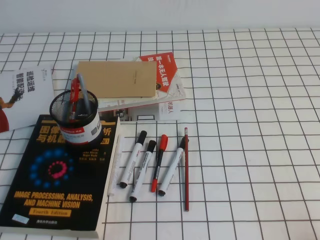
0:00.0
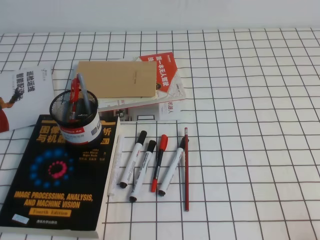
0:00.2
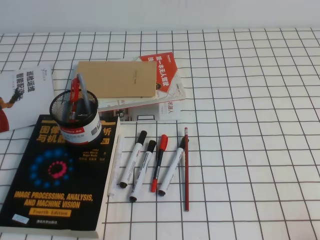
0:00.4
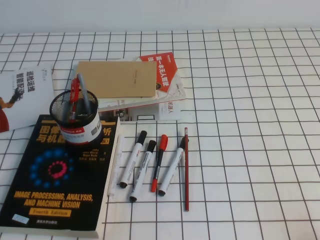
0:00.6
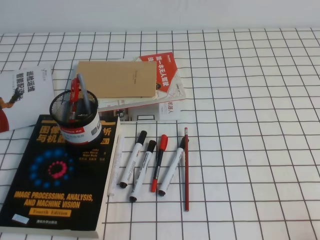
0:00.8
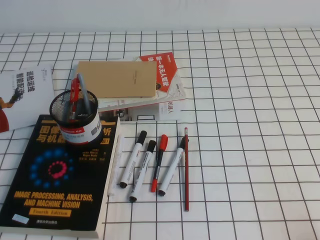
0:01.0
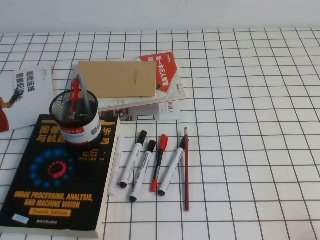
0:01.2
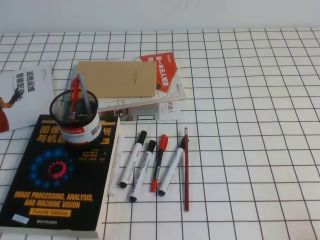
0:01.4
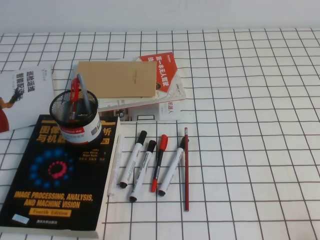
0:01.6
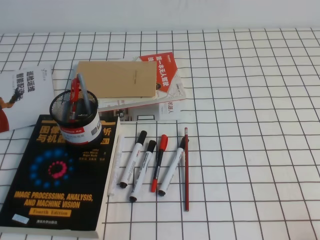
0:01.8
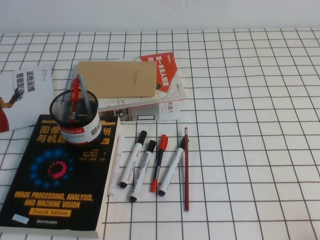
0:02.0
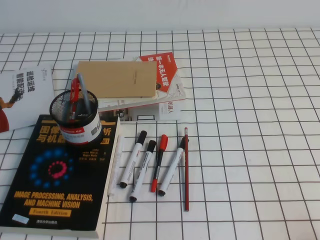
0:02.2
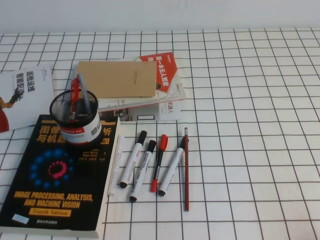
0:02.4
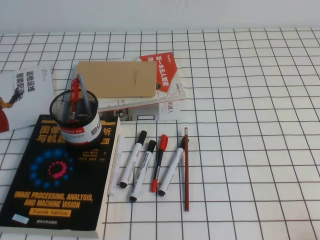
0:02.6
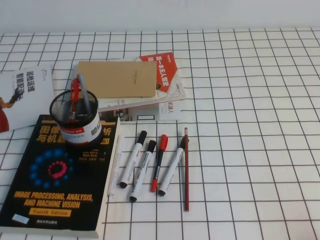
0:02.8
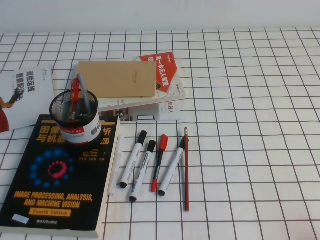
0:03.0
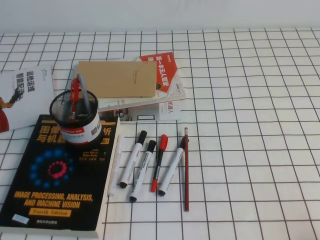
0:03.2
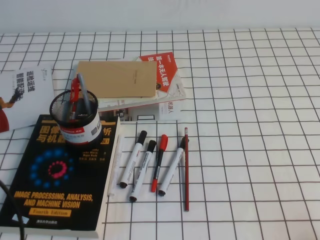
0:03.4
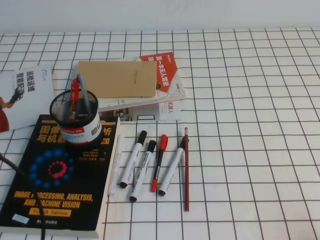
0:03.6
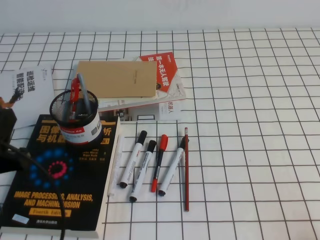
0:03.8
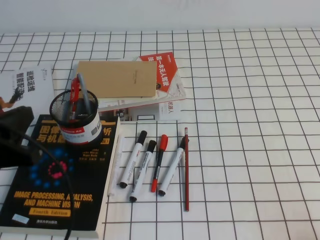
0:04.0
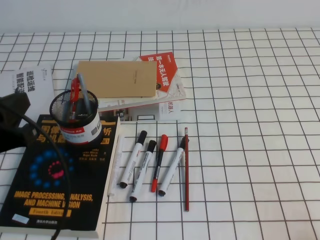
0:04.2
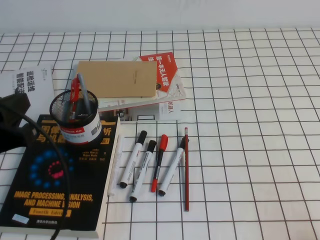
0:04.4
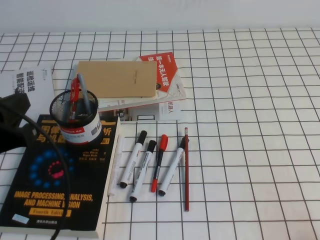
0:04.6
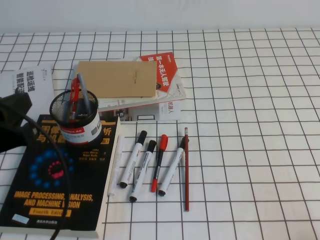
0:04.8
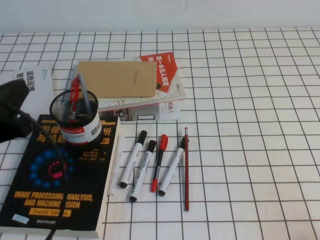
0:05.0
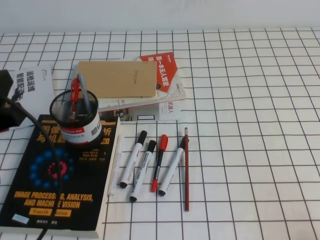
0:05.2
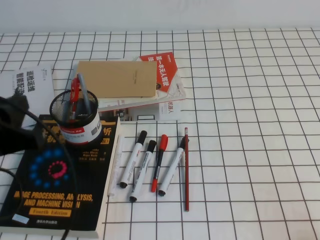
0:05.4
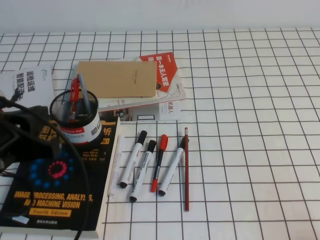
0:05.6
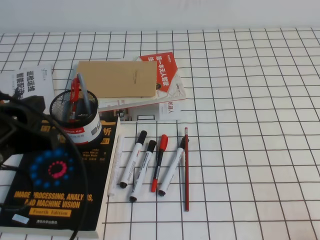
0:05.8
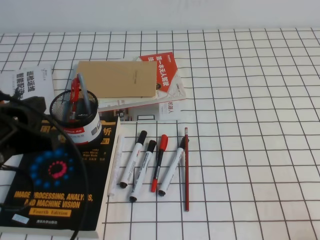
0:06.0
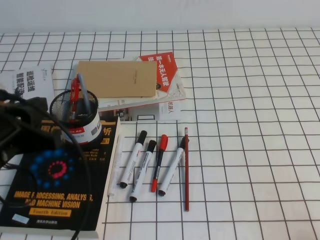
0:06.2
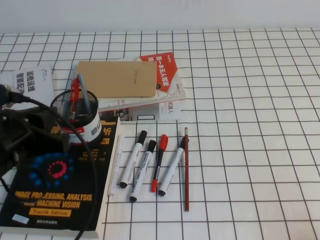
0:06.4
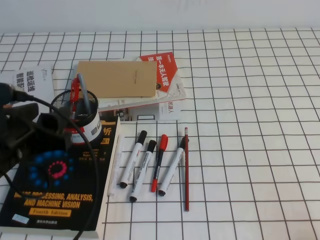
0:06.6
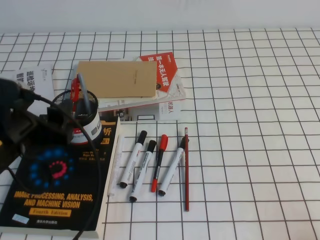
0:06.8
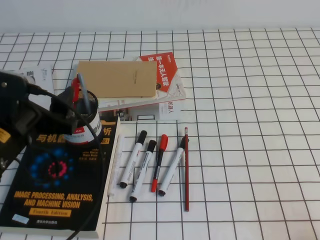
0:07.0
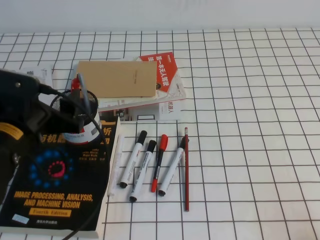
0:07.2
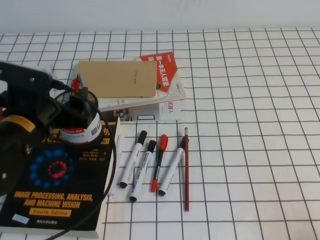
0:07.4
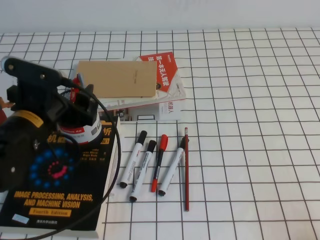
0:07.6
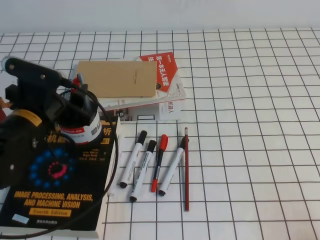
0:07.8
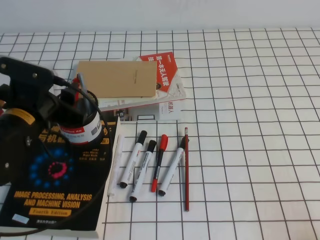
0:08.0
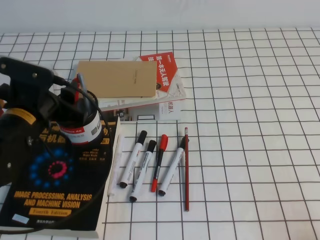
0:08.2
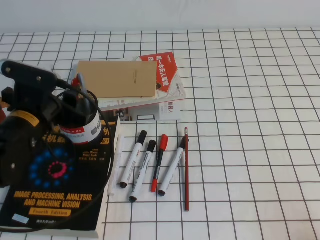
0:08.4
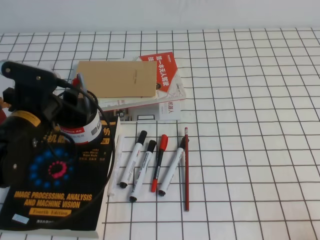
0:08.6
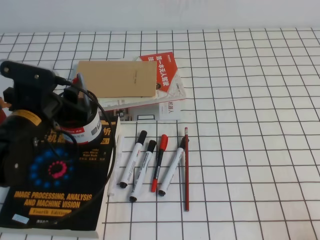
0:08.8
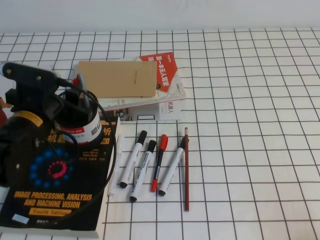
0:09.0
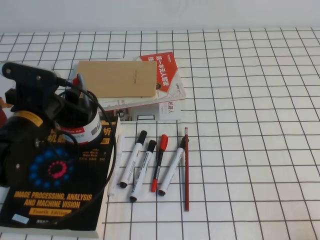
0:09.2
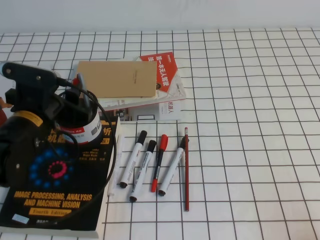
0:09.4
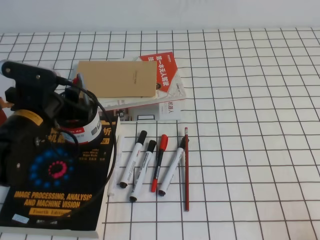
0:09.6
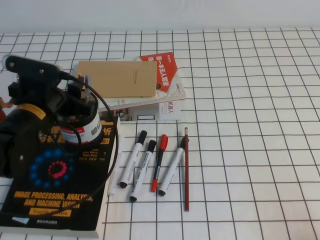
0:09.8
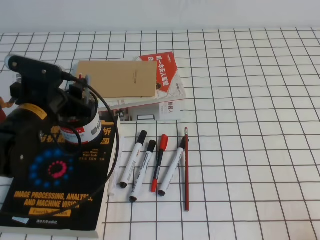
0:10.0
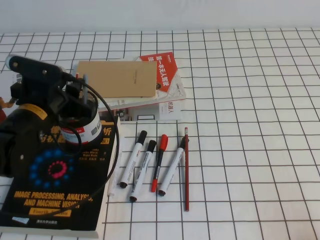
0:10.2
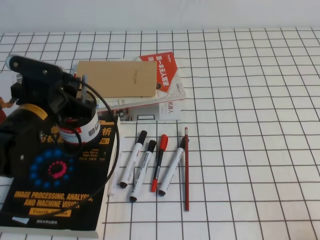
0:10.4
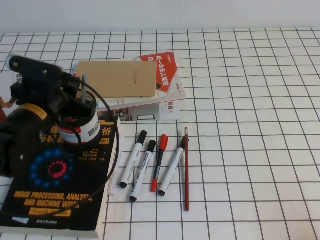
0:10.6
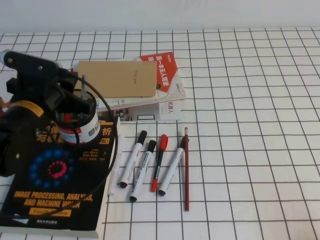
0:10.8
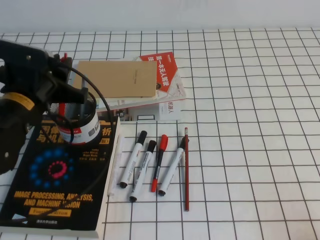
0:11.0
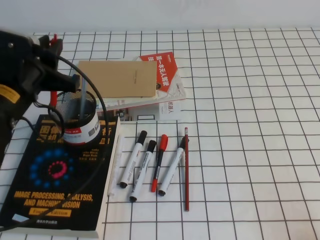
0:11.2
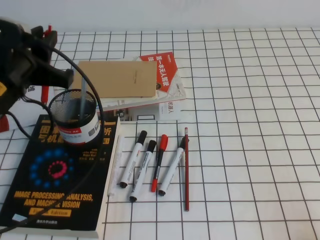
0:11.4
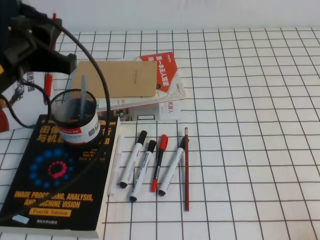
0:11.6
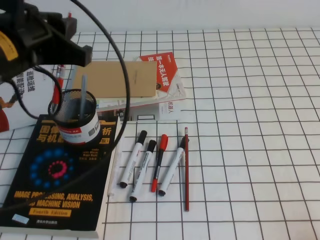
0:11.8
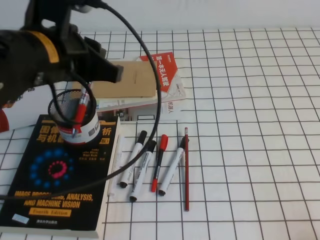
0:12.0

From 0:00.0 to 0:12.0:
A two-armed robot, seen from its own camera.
From 0:03.0 to 0:04.4: The left gripper is displaced forward by some 10 cm.
From 0:04.4 to 0:06.0: The grippers stay close to where they were, moving slightly.
From 0:06.0 to 0:07.6: The left gripper shifts approximately 10 cm forward and downward, and opens.
From 0:07.6 to 0:09.0: The grippers make only small movements.
From 0:09.0 to 0:10.4: The left gripper closes its fingers.
From 0:10.4 to 0:12.0: The left gripper moves upward, approximately 15 cm.

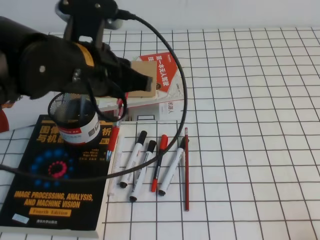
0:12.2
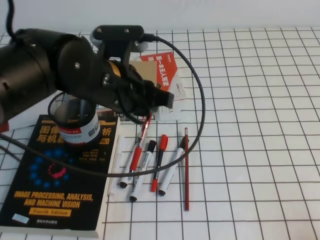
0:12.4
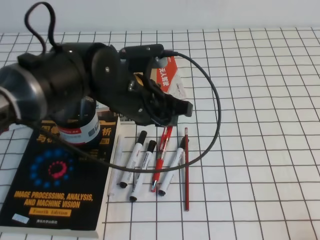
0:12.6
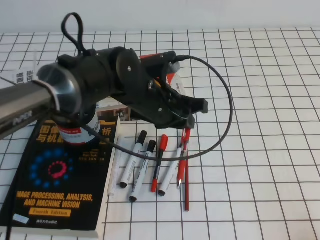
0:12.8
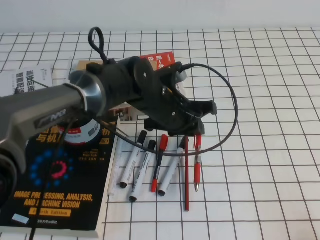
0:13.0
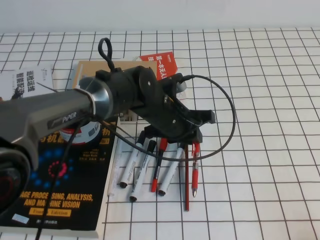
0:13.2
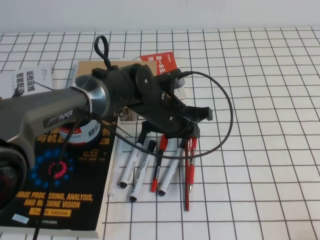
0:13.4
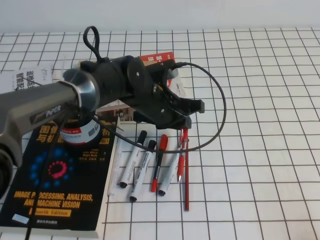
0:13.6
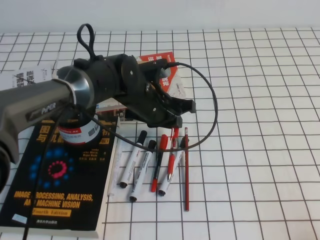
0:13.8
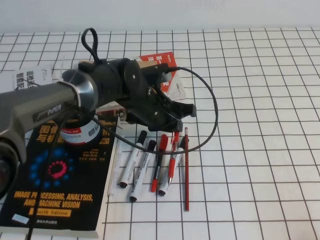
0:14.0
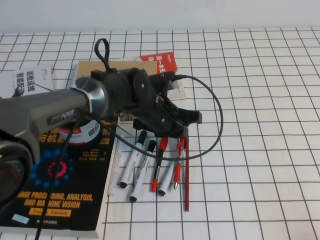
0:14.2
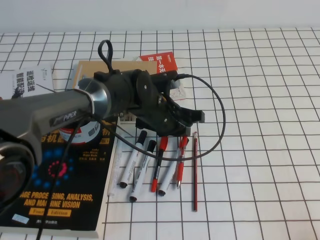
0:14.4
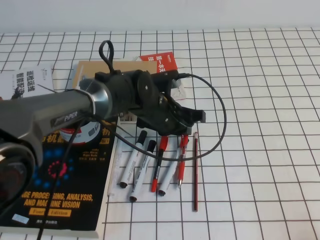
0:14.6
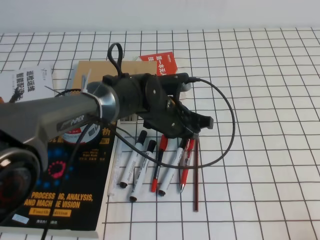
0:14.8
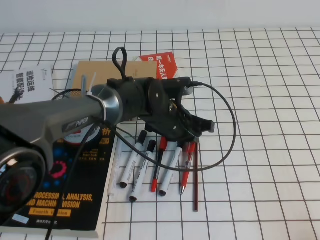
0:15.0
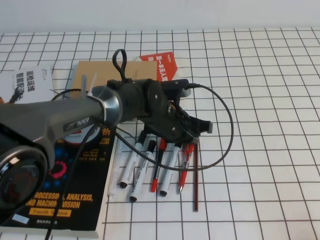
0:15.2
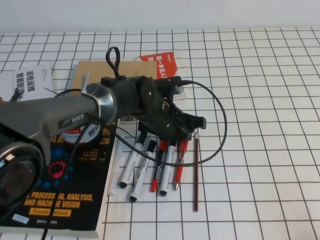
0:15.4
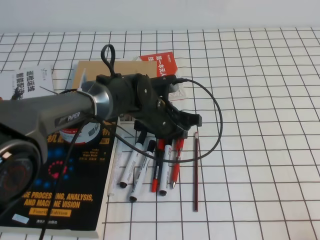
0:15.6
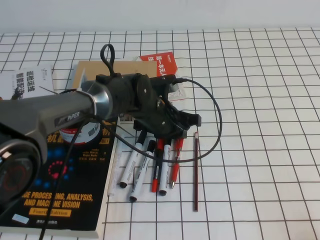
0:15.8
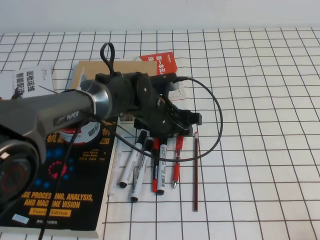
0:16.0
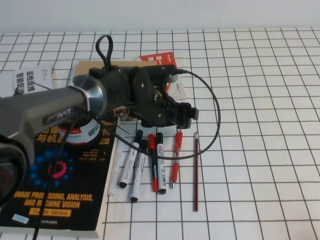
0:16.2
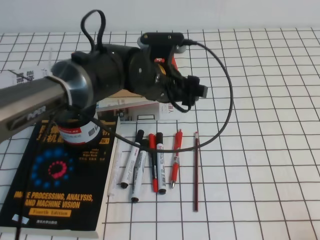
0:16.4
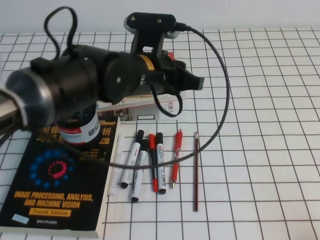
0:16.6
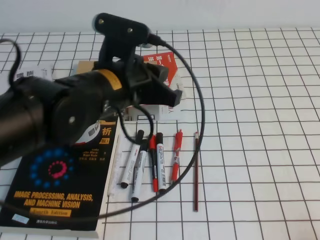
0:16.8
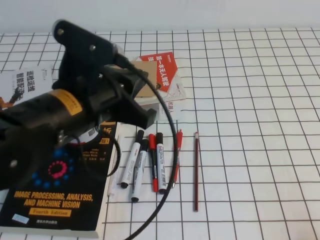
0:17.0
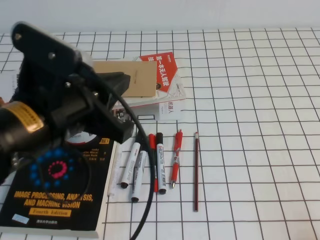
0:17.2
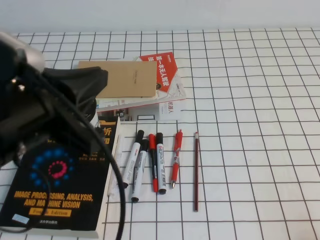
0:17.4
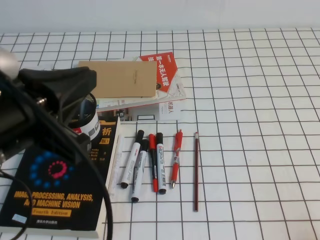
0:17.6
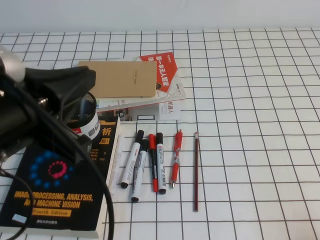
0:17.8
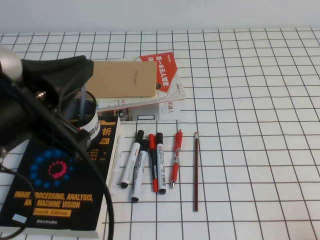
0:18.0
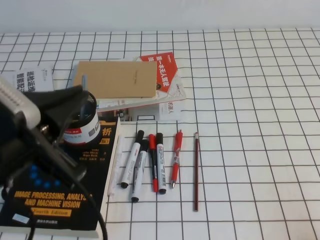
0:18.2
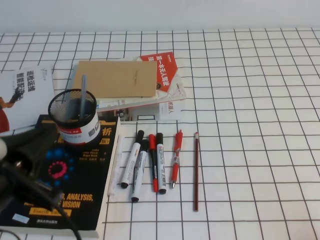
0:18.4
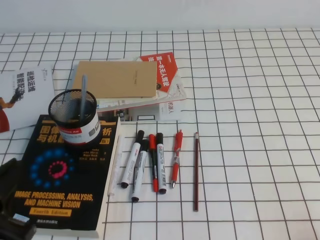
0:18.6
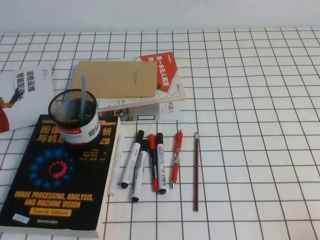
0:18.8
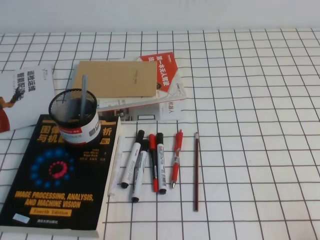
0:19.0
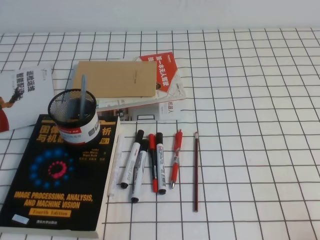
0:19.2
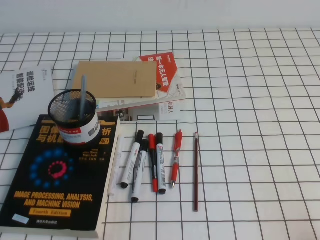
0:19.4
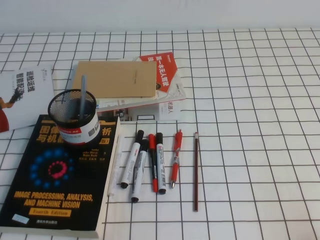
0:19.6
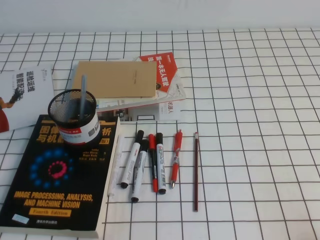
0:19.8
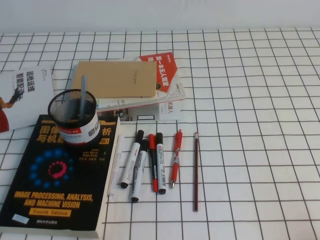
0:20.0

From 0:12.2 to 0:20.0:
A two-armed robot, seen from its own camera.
Step, from 0:12.2 to 0:20.0: Pick up the pen from the pen holder.
From 0:12.2 to 0:13.8: The left gripper shifts roughly 20 cm downward, to the right and forward.
From 0:13.8 to 0:15.4: The grippers move only a little.
From 0:15.4 to 0:16.8: The left gripper is displaced upward, backward and to the left by roughly 20 cm, and opens and closes again.
From 0:16.8 to 0:18.4: The left gripper heads backward and to the left, covering some 20 cm.
From 0:18.4 to 0:20.0: The left gripper travels downward, backward and to the left by about 15 cm.

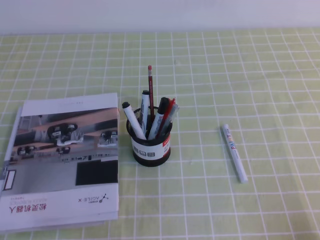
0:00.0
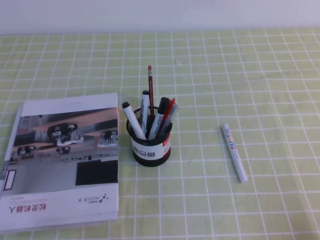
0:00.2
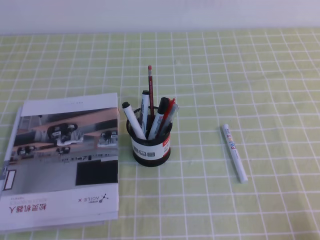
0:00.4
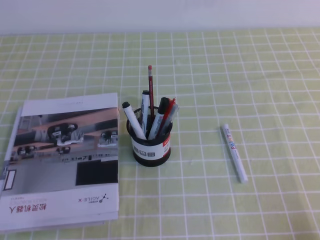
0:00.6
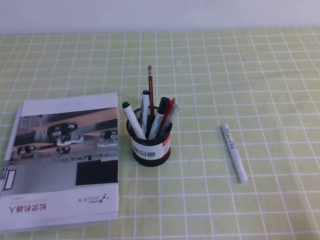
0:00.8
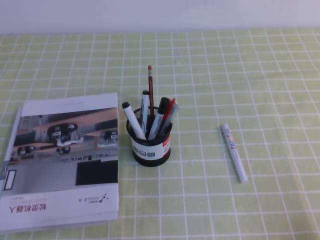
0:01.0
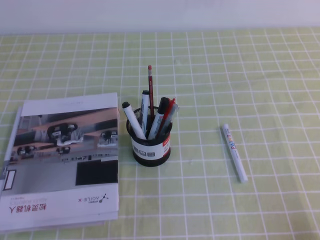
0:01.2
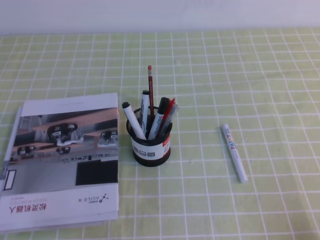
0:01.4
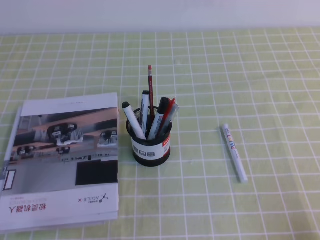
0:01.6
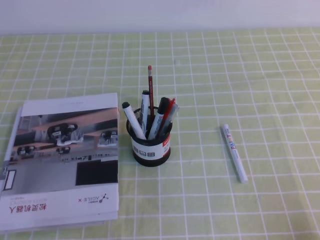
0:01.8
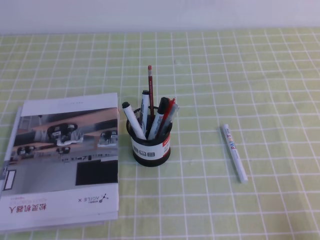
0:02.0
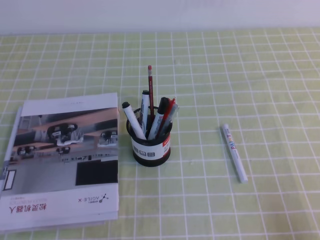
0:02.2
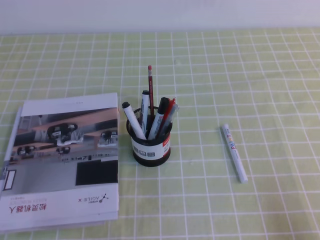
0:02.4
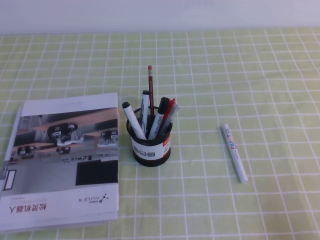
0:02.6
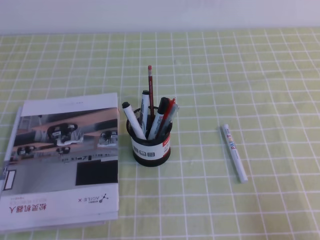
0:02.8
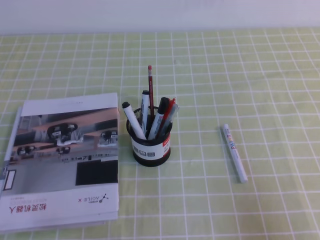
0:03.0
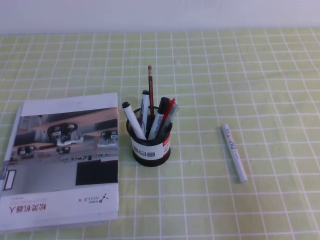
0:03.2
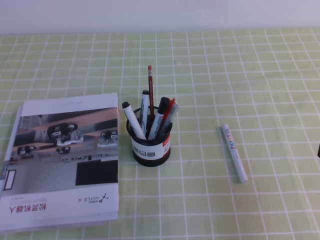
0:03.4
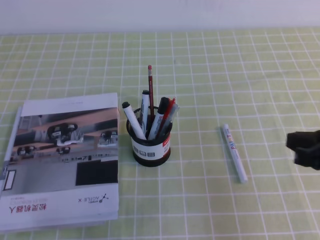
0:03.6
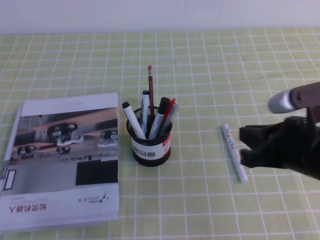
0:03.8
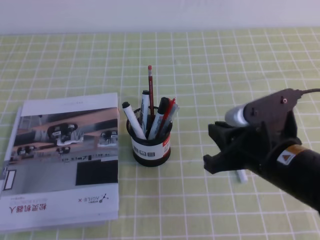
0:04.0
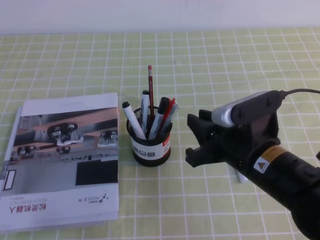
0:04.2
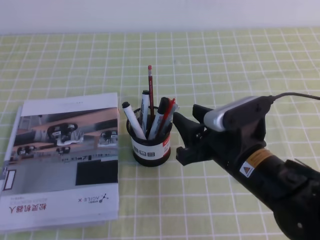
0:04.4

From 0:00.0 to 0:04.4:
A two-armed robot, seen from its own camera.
From 0:00.0 to 0:01.4: Neither gripper changes place.
From 0:01.4 to 0:03.0: The right gripper goes about 5 cm upward.
From 0:03.0 to 0:04.4: The right gripper moves to the left and forward, approximately 25 cm, and opens up.
